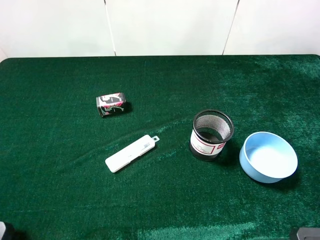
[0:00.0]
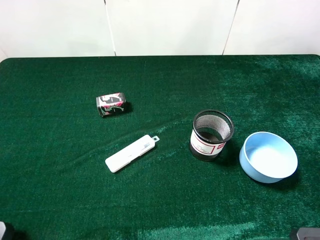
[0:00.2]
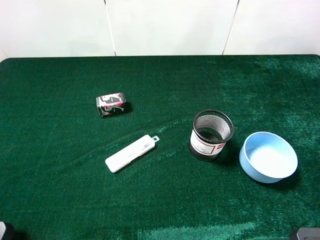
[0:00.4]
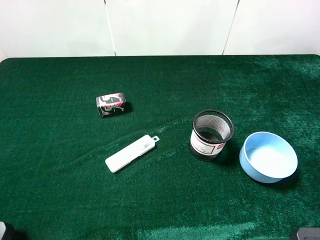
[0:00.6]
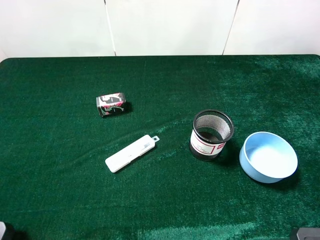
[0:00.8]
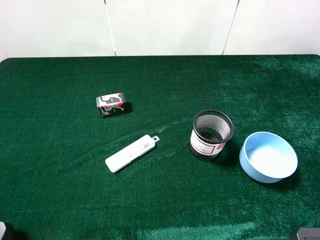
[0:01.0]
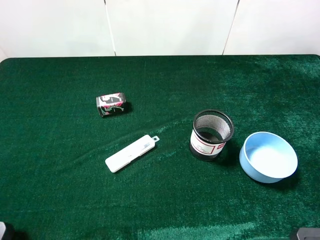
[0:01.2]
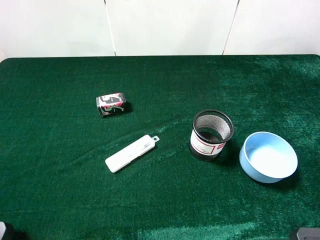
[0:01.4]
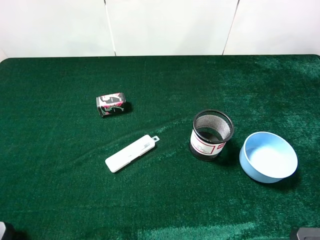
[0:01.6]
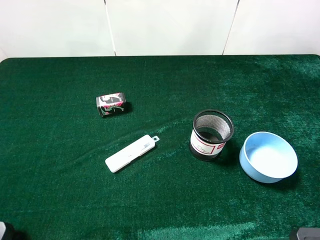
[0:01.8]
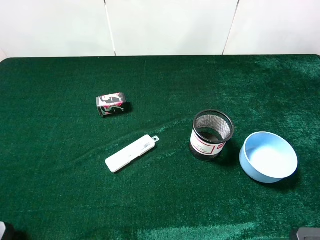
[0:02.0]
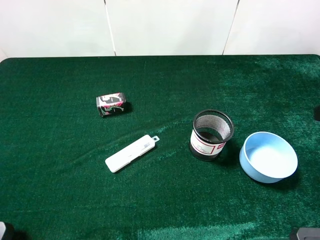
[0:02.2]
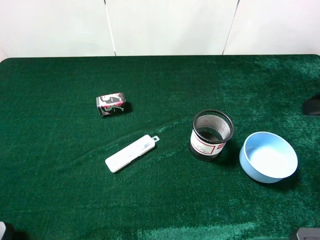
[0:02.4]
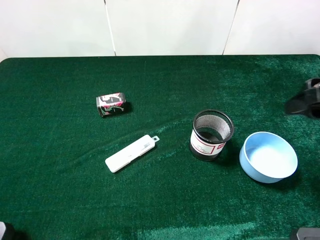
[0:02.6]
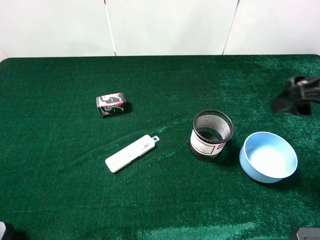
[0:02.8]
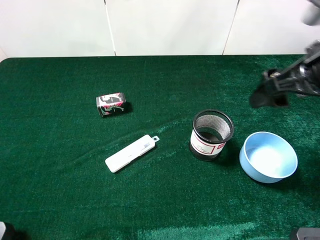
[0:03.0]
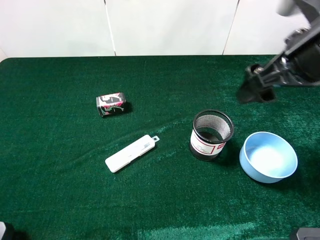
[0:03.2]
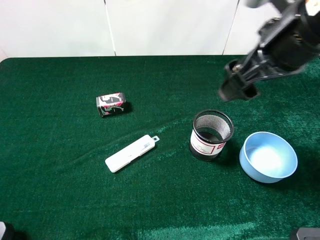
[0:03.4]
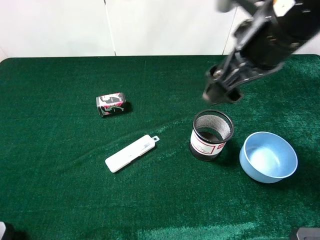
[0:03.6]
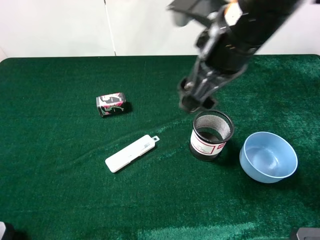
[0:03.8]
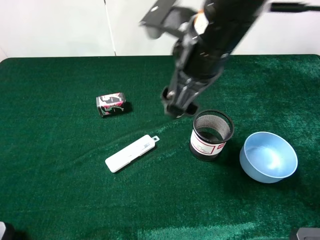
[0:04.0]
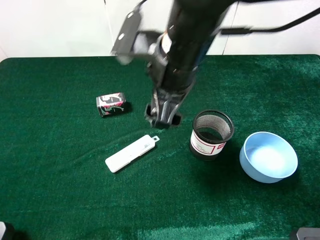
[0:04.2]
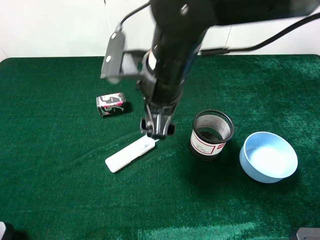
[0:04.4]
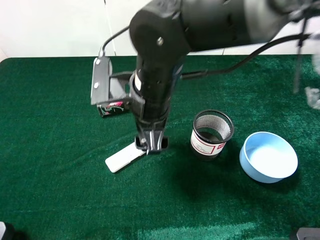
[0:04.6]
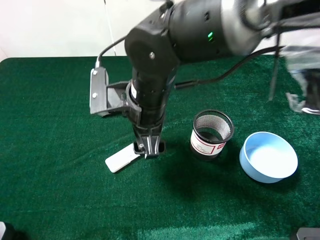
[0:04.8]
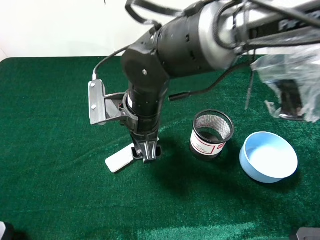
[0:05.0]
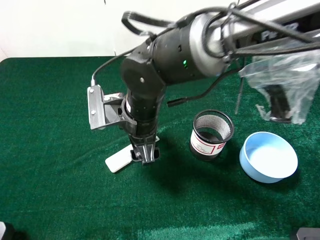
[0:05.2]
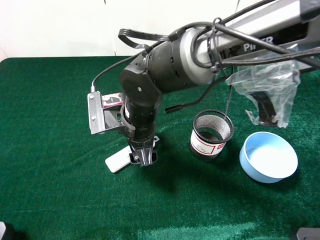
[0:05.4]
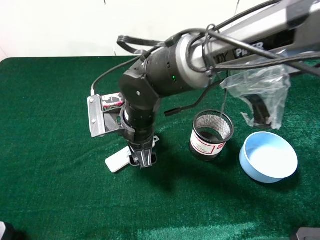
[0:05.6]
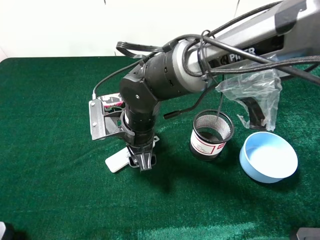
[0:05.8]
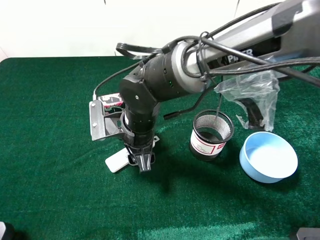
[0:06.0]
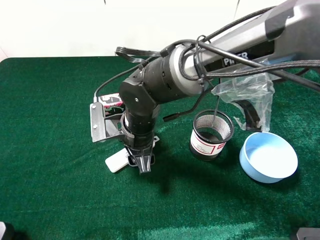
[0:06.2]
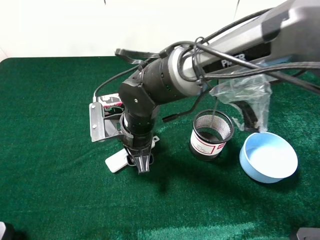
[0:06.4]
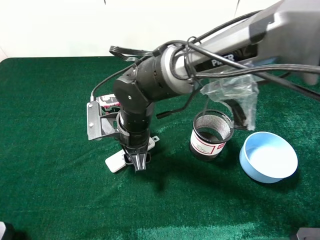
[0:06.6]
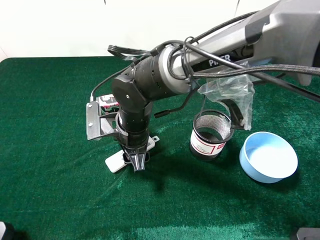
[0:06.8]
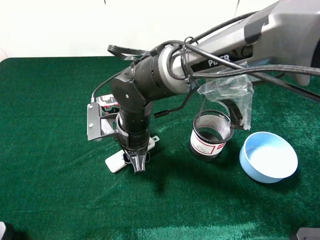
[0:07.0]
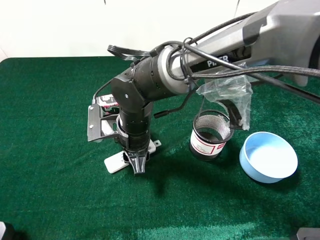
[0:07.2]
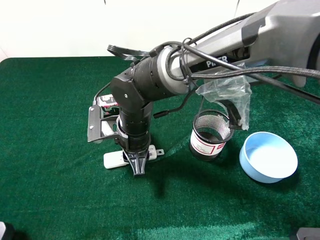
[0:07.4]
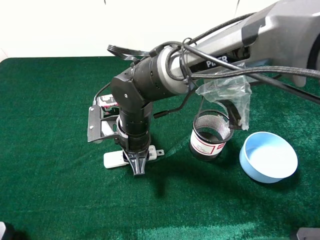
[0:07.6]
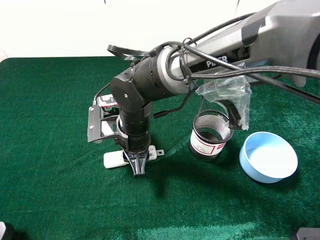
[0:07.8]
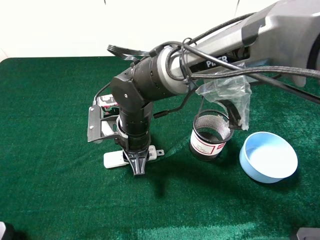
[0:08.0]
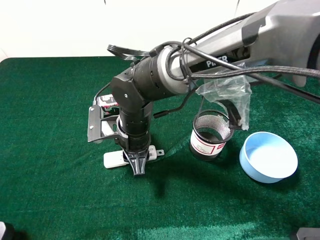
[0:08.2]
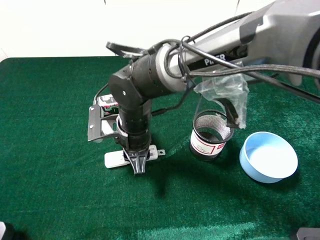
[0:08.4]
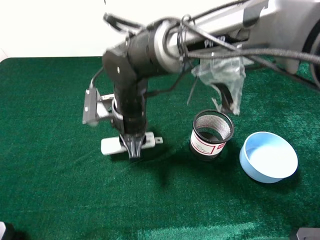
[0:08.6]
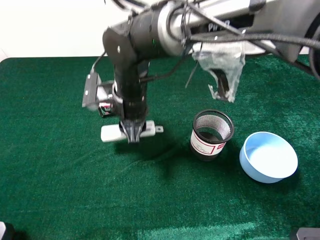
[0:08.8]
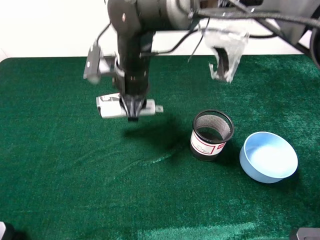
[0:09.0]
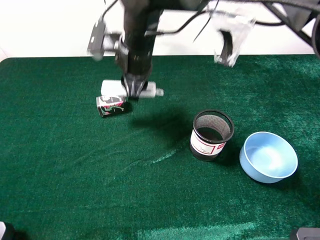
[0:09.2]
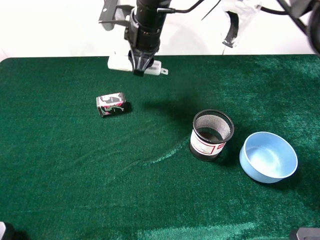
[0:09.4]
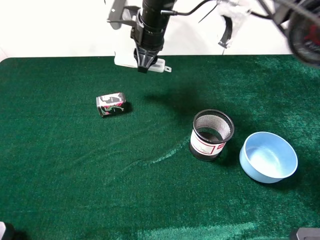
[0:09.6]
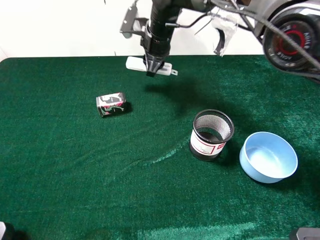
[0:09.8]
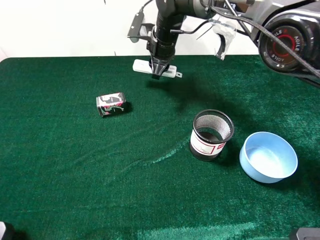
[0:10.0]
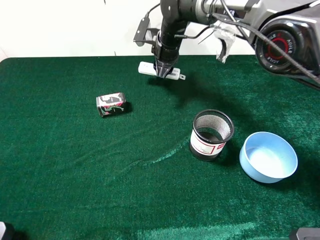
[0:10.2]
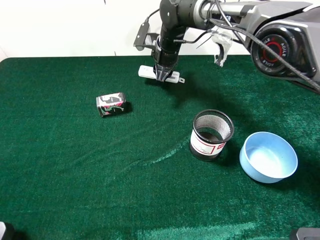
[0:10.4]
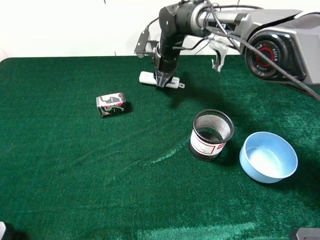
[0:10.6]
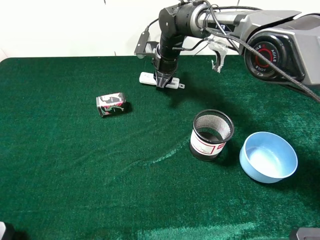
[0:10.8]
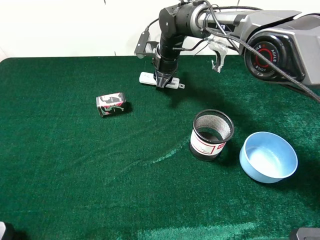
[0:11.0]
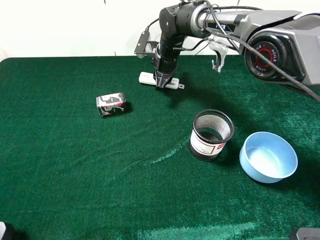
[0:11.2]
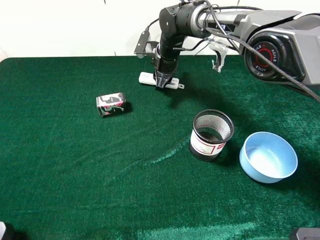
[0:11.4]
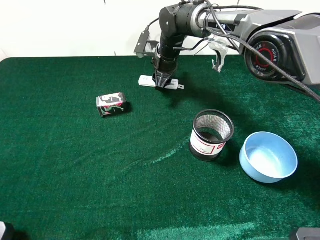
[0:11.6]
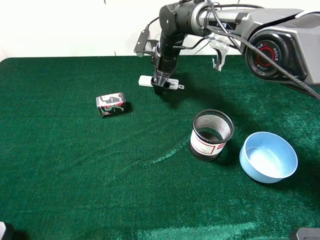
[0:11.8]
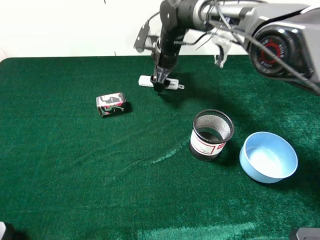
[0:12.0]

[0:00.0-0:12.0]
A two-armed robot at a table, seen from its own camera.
Task of the whole recording: the gripper move the object.
Step, 0.0 to 7.4 s: Grasp the compasses with the right gripper.
Step, 7.6 to 12.0 s: Place the compasses on the table with the right gripper.
1.6 to 3.0 s: The right gripper heads forward and to the left, covering about 20 cm.
3.0 to 4.4 s: The right gripper is displaced to the left by approximately 20 cm.
4.4 to 6.0 s: The right gripper goes some 10 cm downward, and closes its fingers.
6.0 to 7.6 s: The right gripper closes.
7.6 to 9.0 s: The right gripper is displaced upward and forward by some 15 cm.
9.0 to 10.4 s: The right gripper heads forward and to the right, covering roughly 15 cm.
10.4 to 12.0 s: The right gripper opens up.

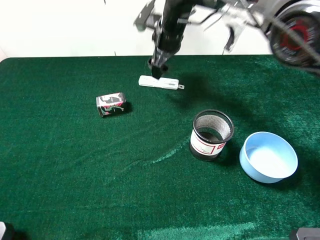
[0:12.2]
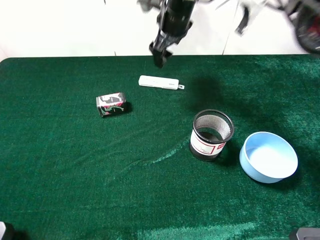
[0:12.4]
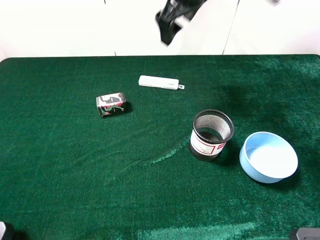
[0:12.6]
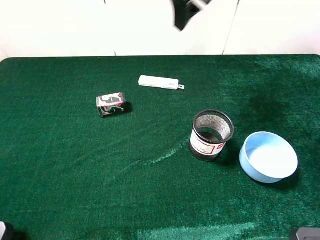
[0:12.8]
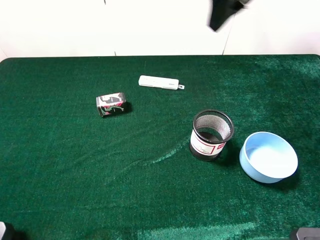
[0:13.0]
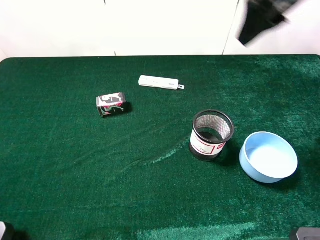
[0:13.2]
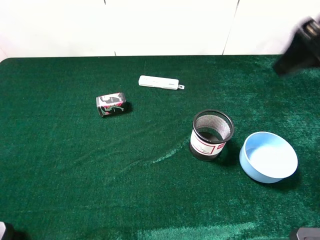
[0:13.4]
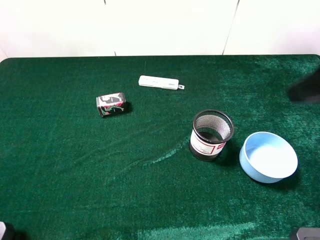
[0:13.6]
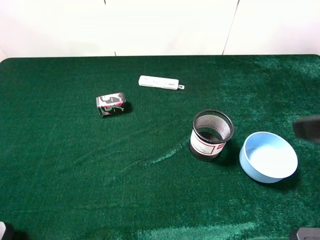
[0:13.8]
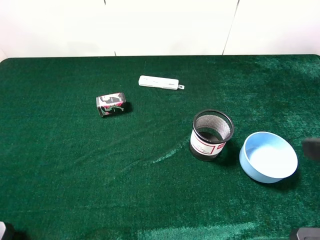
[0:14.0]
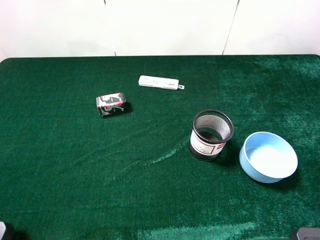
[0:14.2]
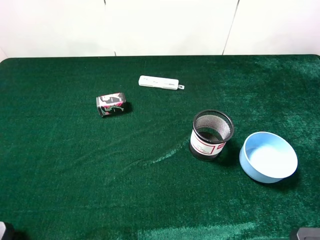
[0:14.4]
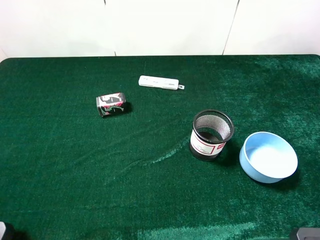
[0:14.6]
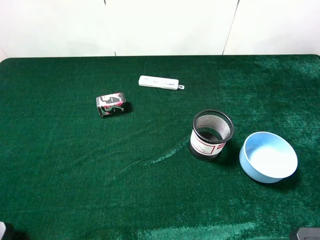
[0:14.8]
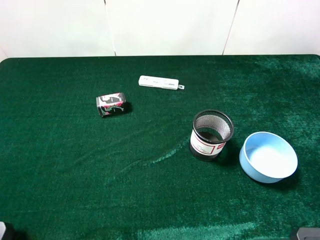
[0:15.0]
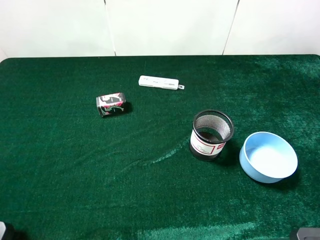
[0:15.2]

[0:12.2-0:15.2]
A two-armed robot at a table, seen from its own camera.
Task of the whole recording: the gripper move the object.
12.2 to 13.8 s: The right gripper shifts roughly 40 cm backward and to the right.
13.8 to 15.2 s: The right gripper is displaced backward by approximately 10 cm.

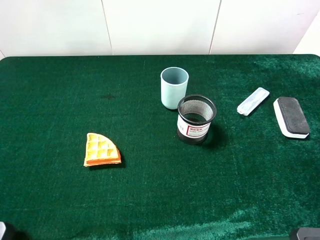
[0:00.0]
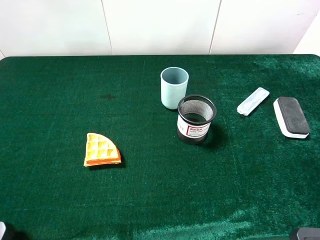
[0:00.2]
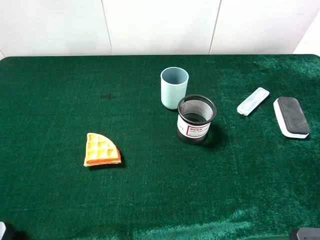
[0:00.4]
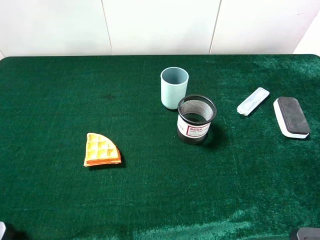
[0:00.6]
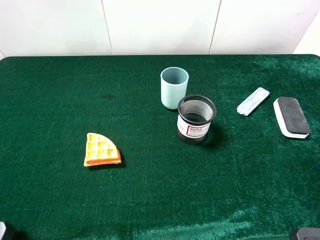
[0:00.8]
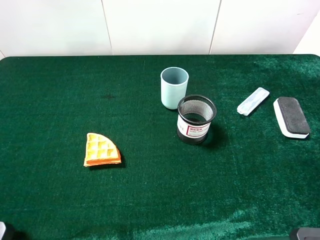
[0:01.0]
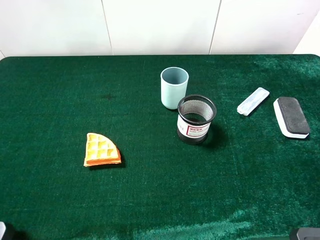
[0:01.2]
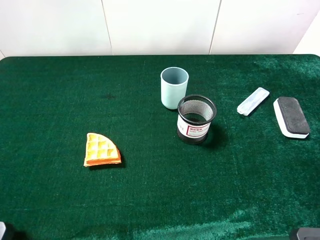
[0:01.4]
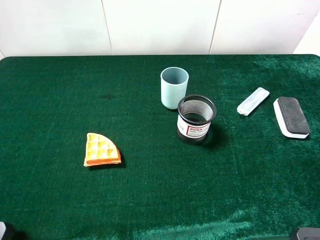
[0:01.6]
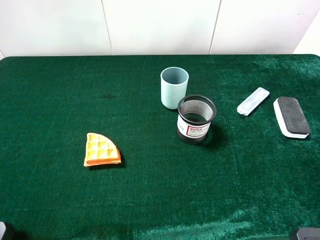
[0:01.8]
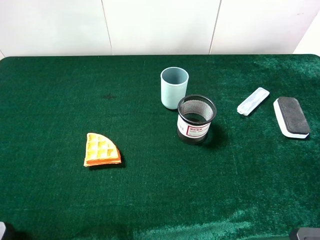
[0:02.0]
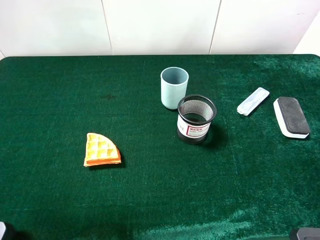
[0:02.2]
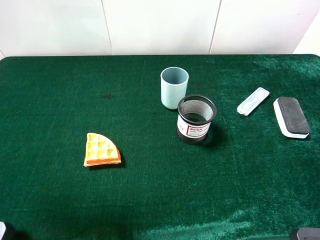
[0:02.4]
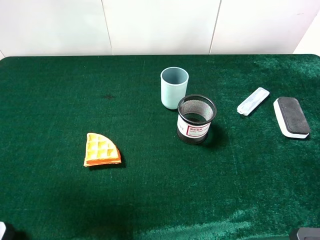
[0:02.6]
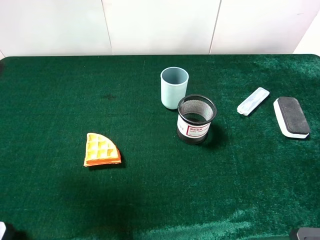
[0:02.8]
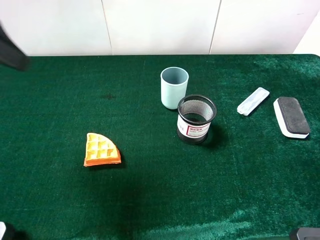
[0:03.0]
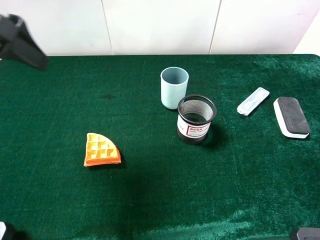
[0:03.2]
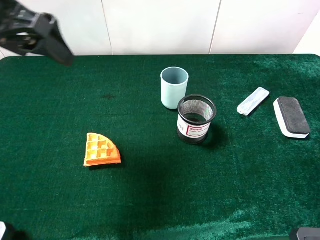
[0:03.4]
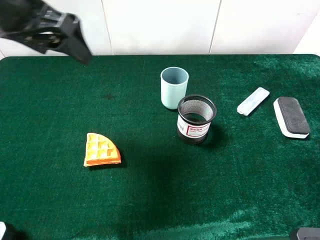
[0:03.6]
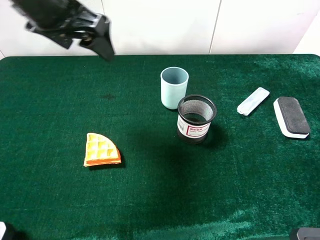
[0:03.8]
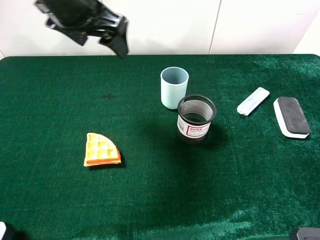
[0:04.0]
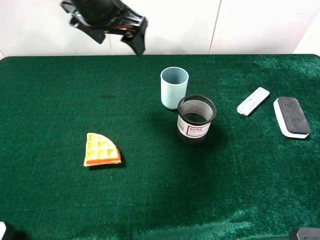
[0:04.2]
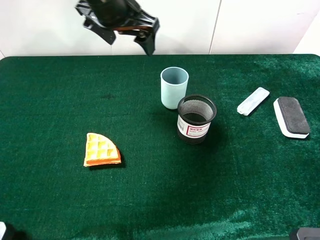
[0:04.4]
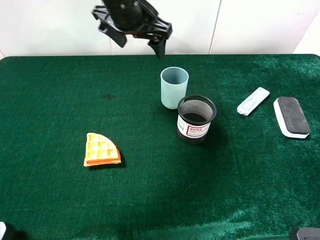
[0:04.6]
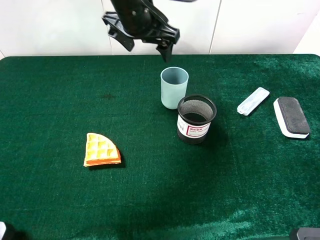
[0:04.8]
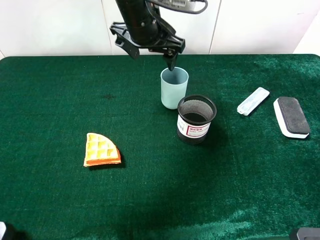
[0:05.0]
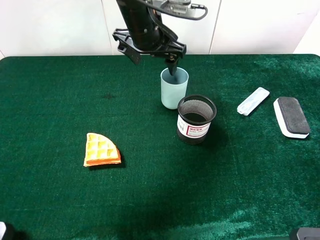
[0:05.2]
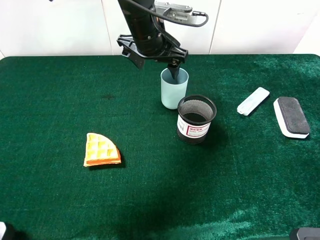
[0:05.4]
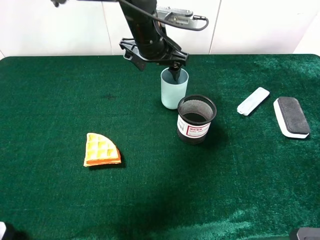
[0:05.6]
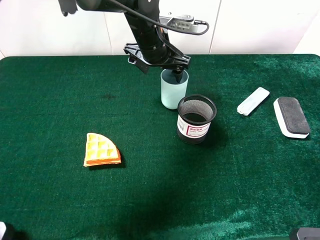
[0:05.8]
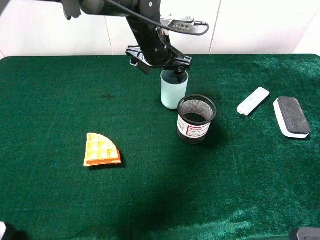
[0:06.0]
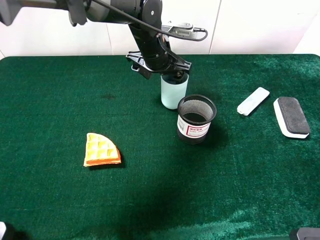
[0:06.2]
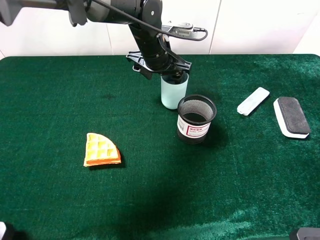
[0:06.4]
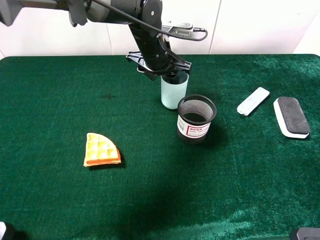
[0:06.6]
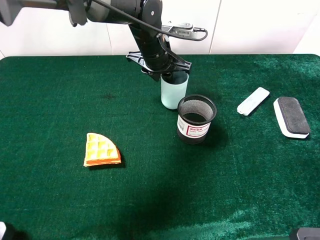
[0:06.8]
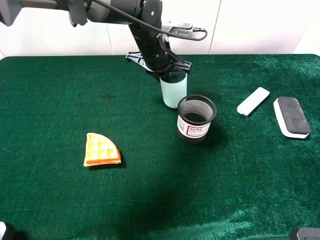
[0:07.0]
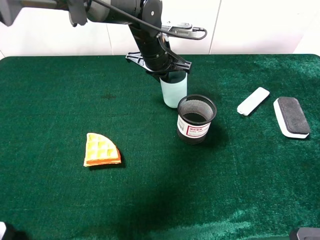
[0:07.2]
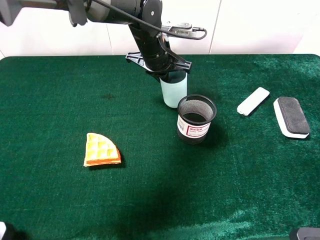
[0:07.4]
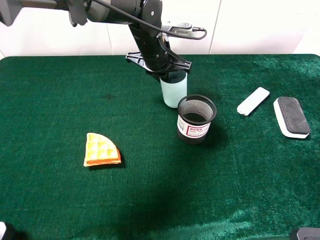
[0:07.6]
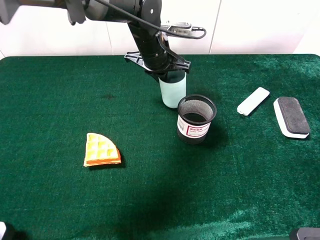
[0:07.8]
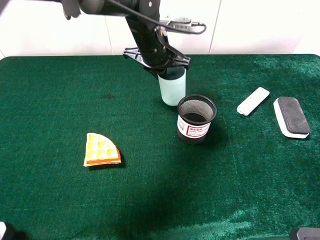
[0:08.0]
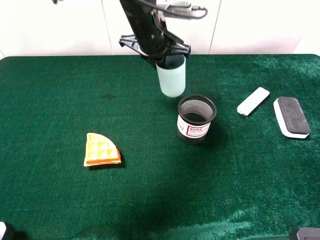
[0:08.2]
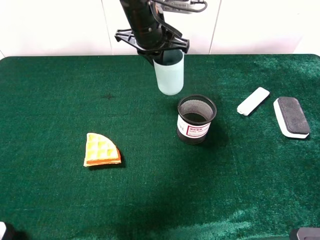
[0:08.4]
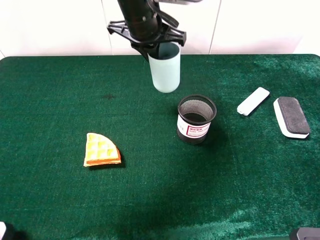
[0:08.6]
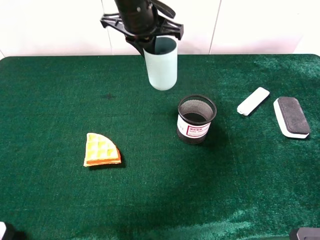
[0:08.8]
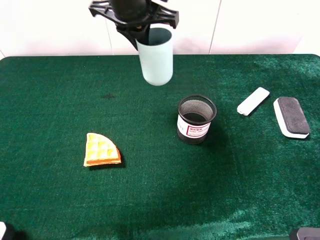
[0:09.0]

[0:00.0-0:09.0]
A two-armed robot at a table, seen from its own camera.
Task of the whole recording: the gripper move the object.
Step, 0.0 to 7.0 s: Grasp the cyan cup with the left gripper.
1.6 to 3.0 s: The left gripper heads forward, covering roughly 20 cm.
3.0 to 4.4 s: The left gripper shifts approximately 25 cm to the right and forward.
4.4 to 6.0 s: The left gripper travels downward and to the right by about 15 cm.
6.0 to 7.6 s: The left gripper closes.
7.6 to 9.0 s: The left gripper shifts roughly 15 cm upward.
